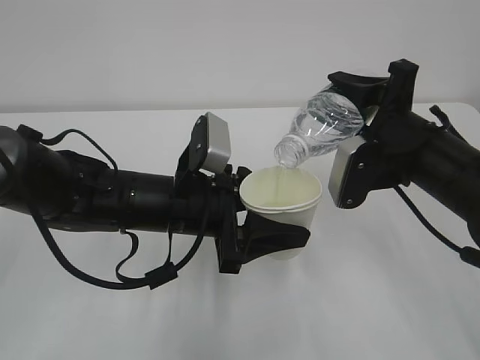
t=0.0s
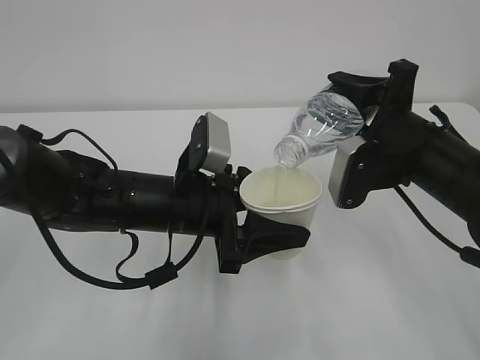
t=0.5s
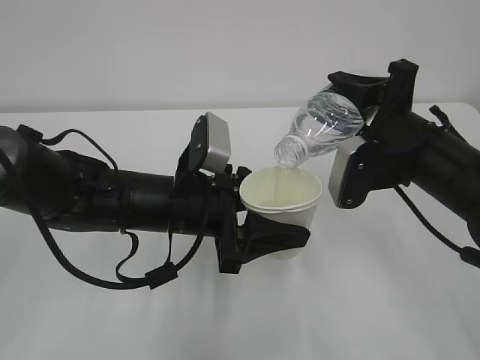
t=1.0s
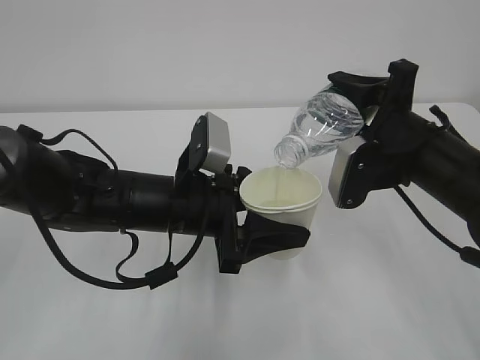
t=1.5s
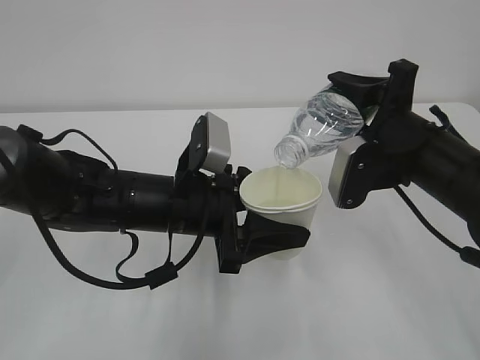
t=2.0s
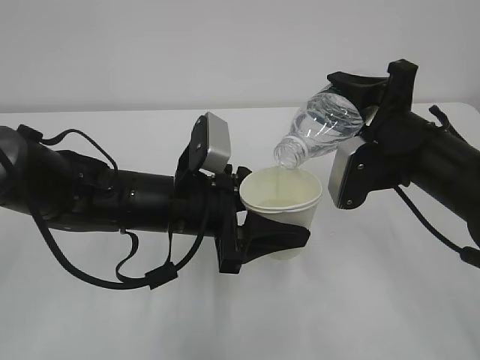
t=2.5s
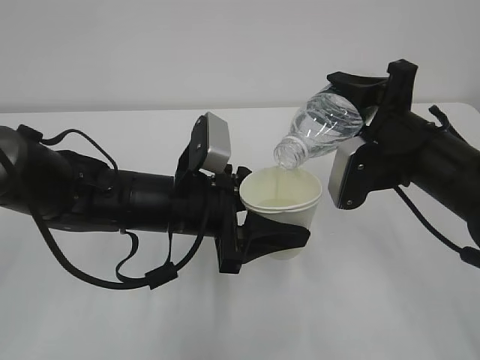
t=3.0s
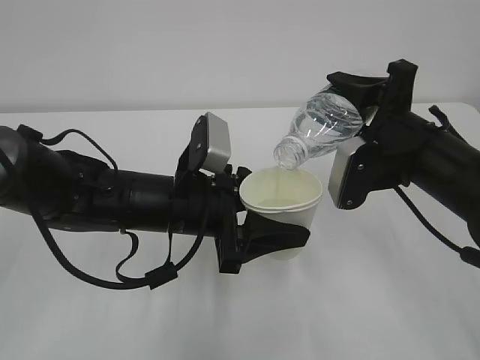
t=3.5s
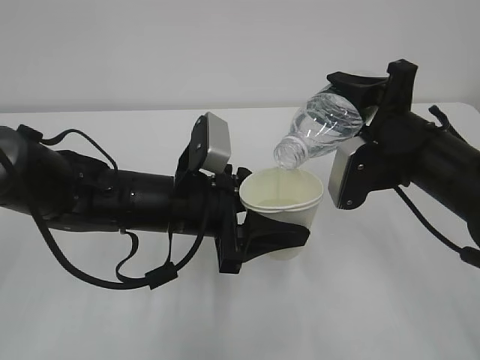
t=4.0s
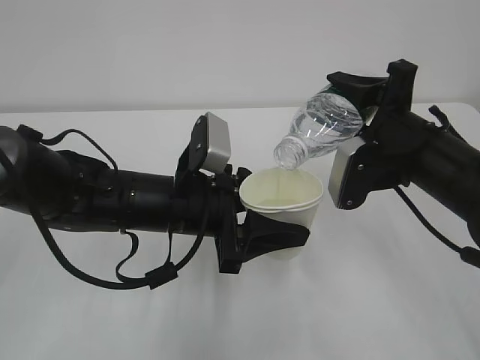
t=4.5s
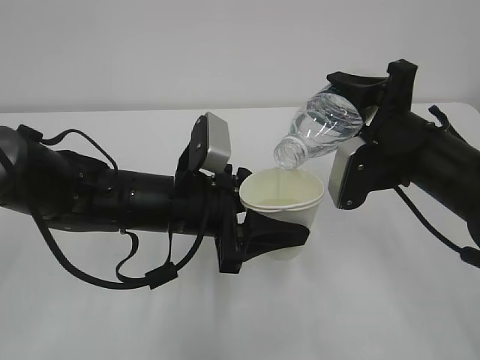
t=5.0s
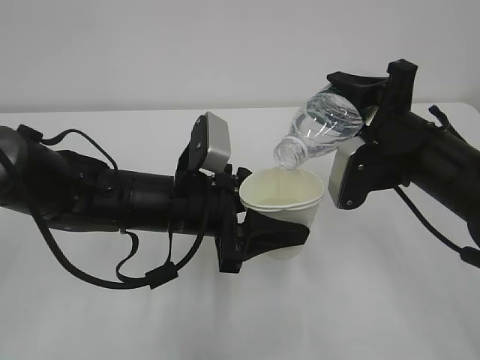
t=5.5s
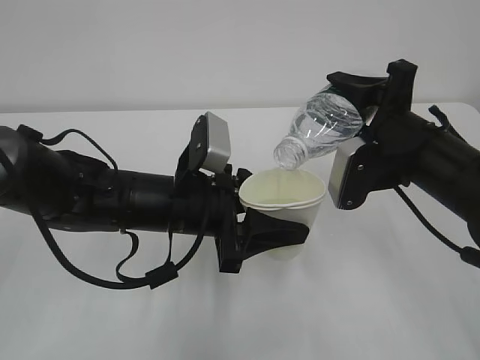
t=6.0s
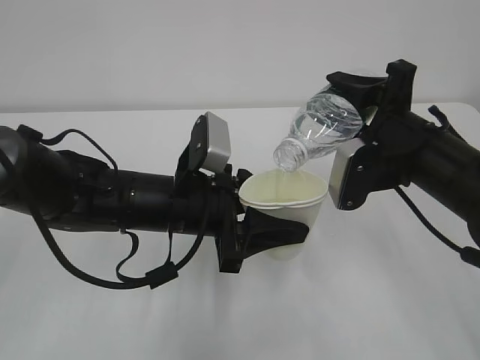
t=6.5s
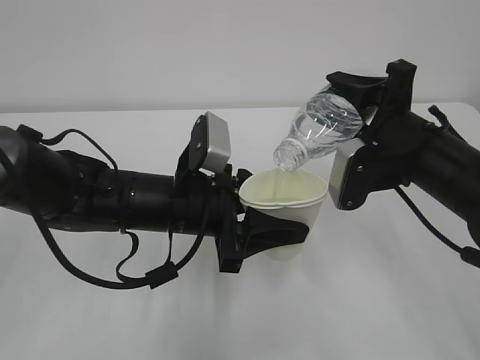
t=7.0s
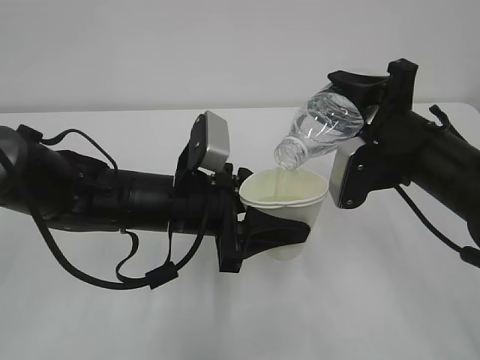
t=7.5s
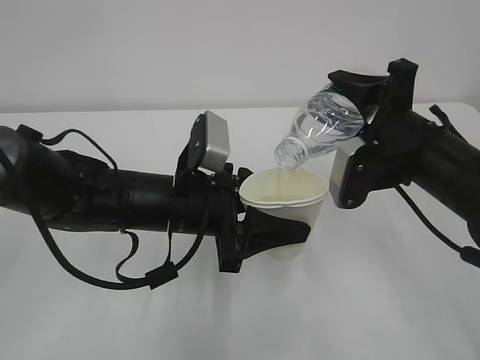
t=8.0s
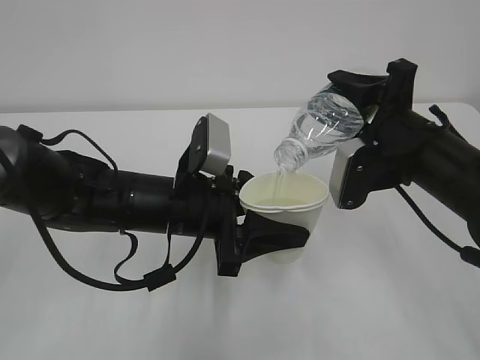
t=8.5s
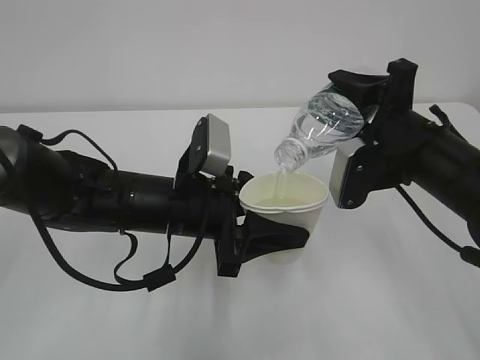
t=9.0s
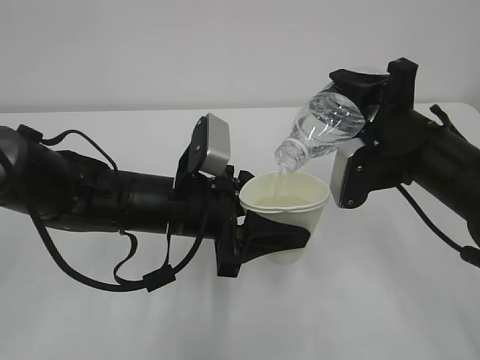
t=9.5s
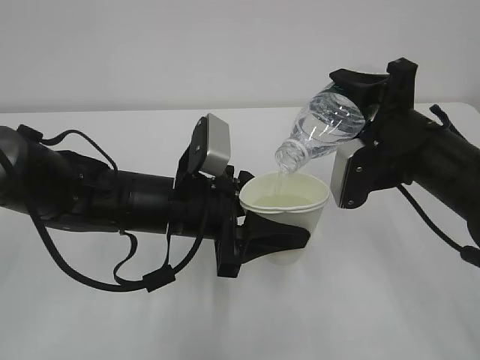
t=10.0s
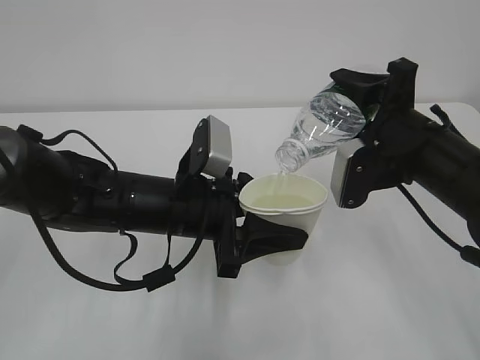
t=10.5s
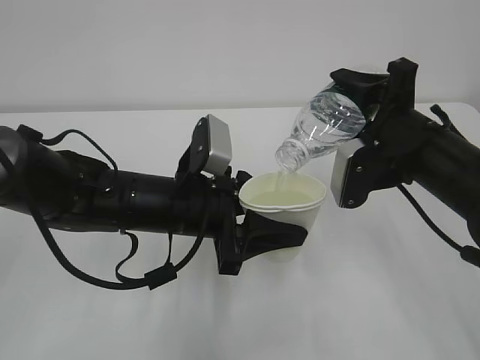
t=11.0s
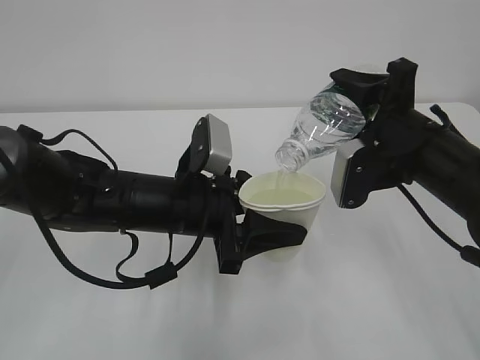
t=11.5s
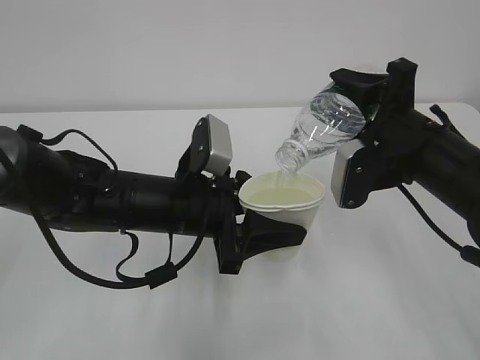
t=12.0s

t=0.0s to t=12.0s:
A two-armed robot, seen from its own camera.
t=0.0s to t=8.0s: The two grippers keep their place.
t=8.0s to t=12.0s: The two grippers keep their place.

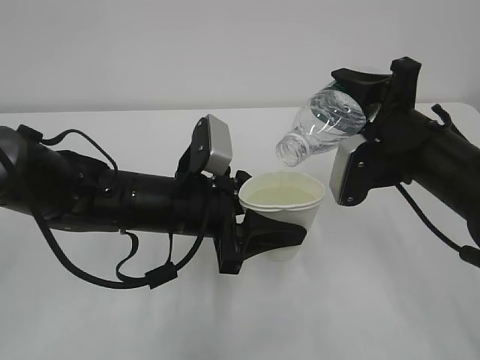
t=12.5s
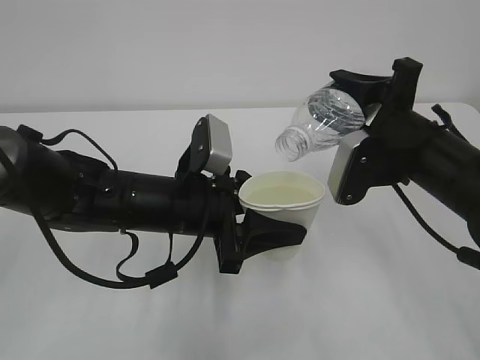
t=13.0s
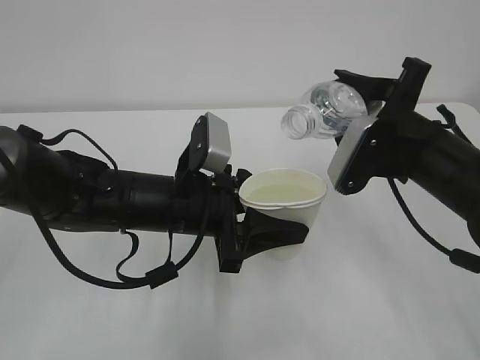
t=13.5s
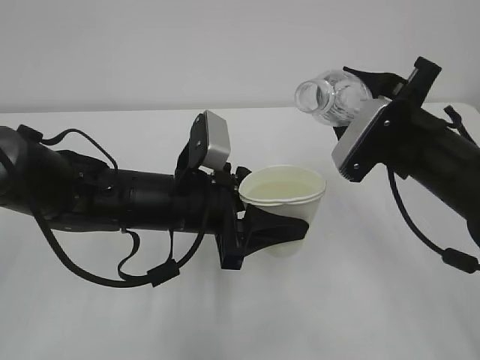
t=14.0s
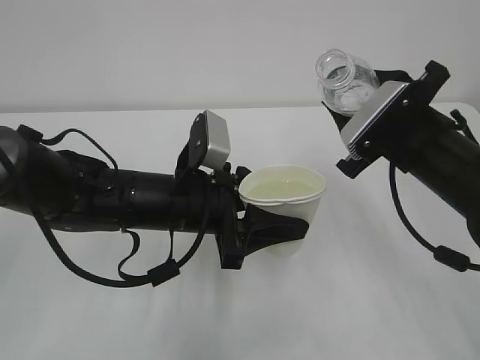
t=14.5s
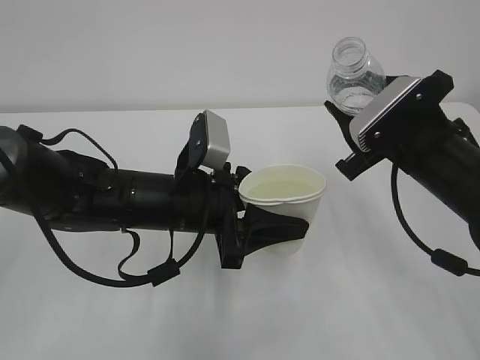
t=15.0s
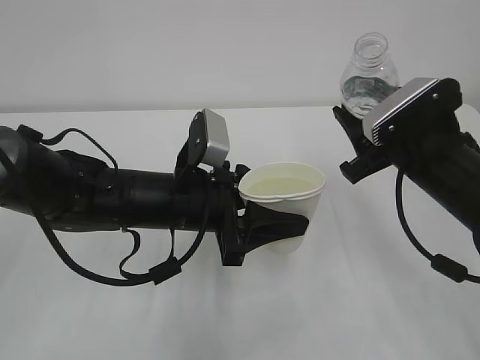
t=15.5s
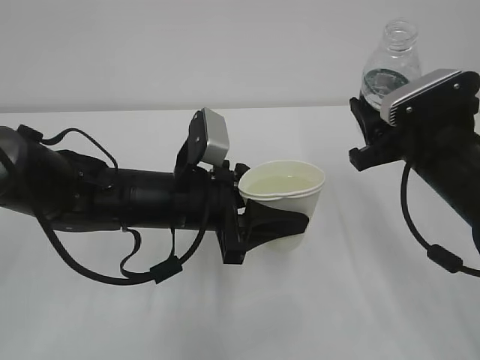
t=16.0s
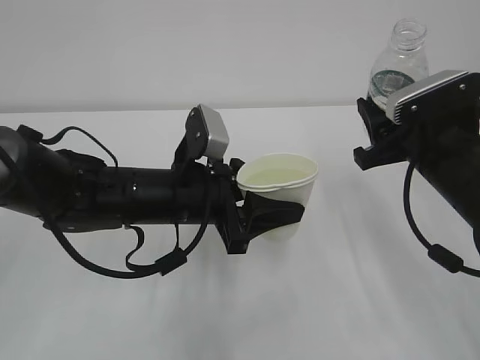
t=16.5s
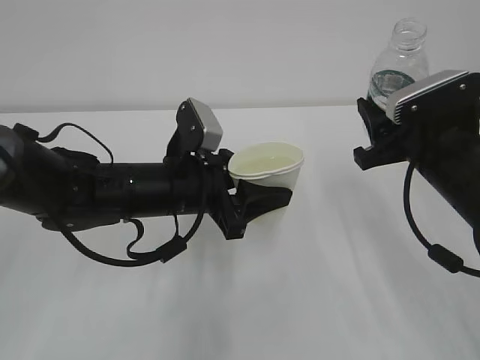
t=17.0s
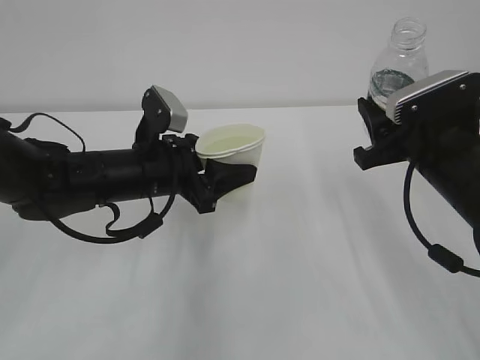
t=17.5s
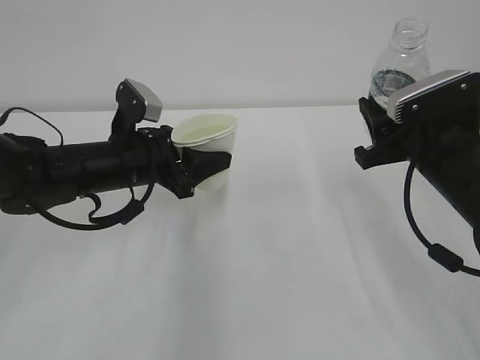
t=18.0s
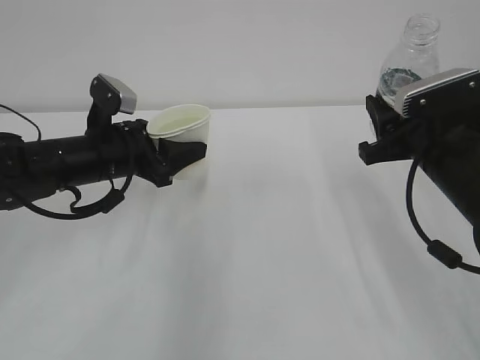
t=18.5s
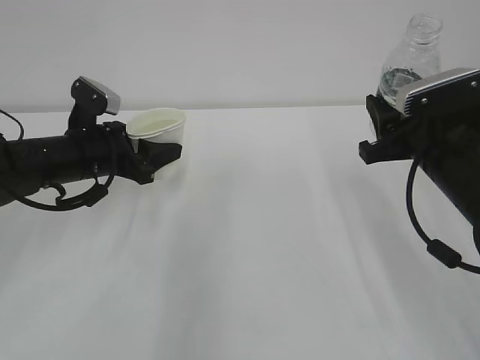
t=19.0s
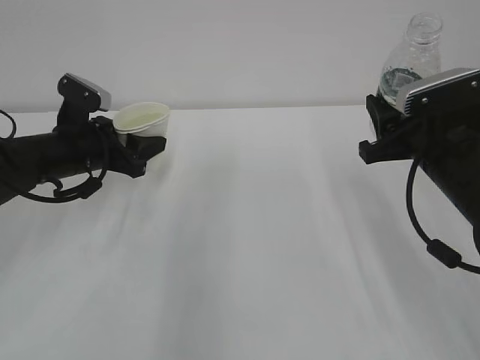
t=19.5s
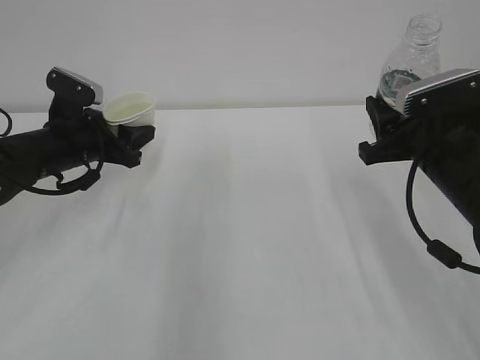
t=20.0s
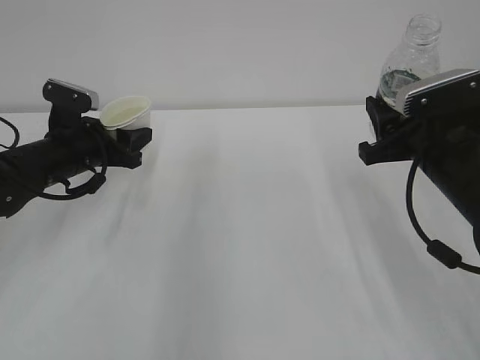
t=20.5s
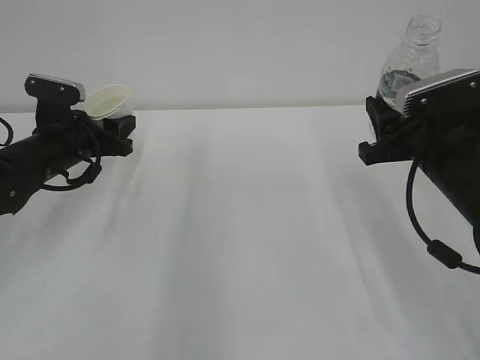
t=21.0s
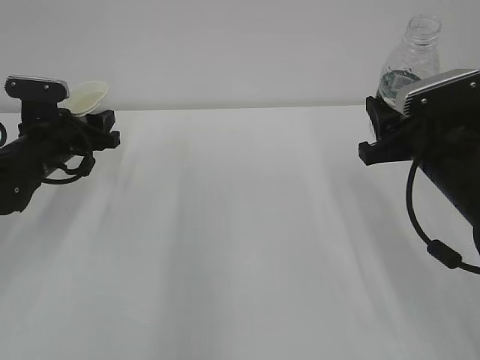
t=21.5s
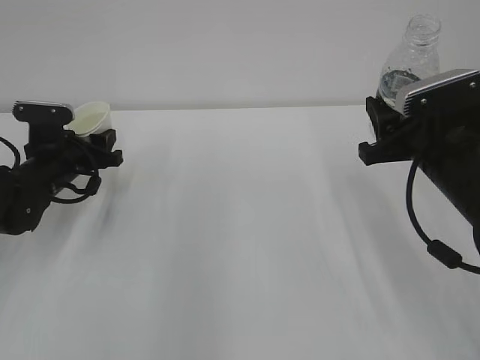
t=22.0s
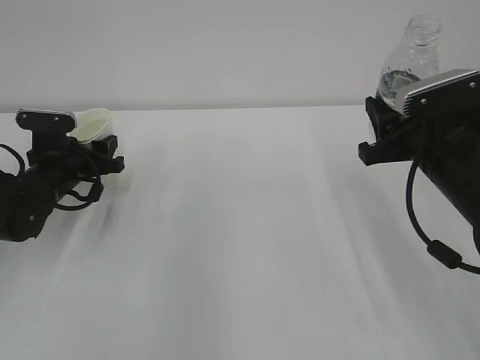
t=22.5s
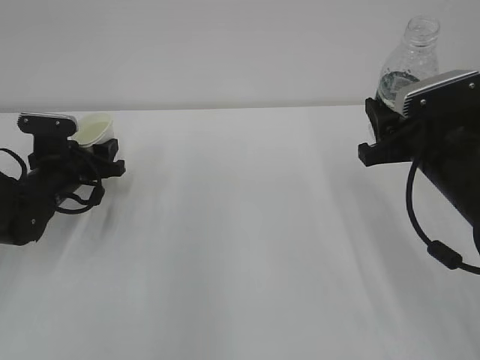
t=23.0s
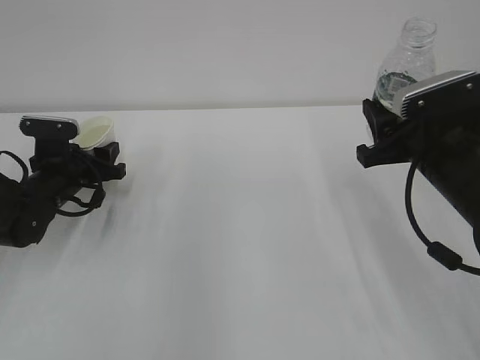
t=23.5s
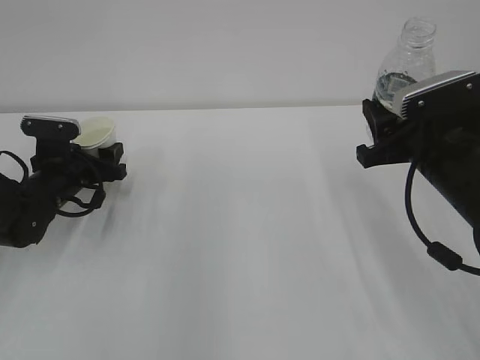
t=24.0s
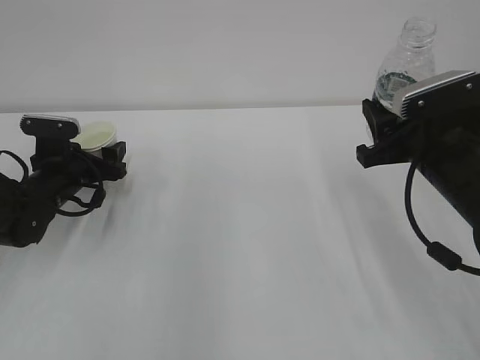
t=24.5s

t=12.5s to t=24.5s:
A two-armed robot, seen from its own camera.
t=16.5s to t=18.5s: The left gripper goes some 10 cm to the left and forward.
t=18.5s to t=20.5s: The left gripper goes some 5 cm to the left.
t=20.5s to t=22.5s: The left gripper moves approximately 5 cm.
t=22.5s to t=24.5s: The left gripper opens.

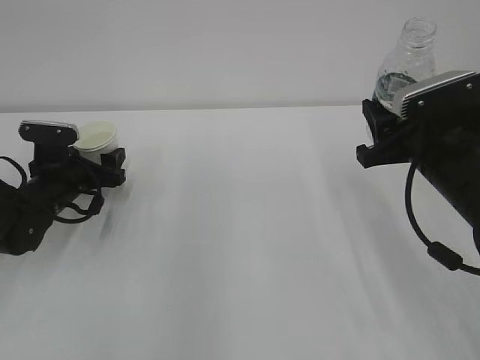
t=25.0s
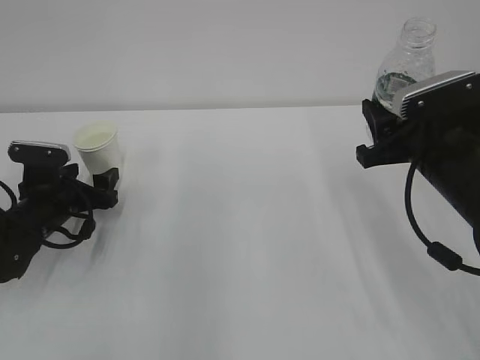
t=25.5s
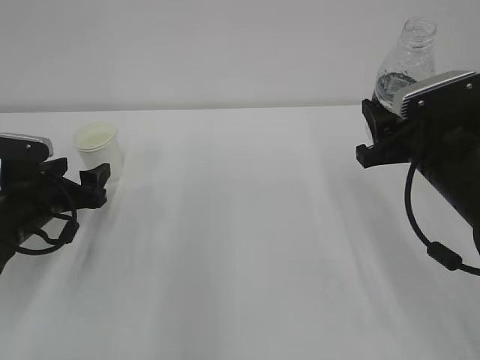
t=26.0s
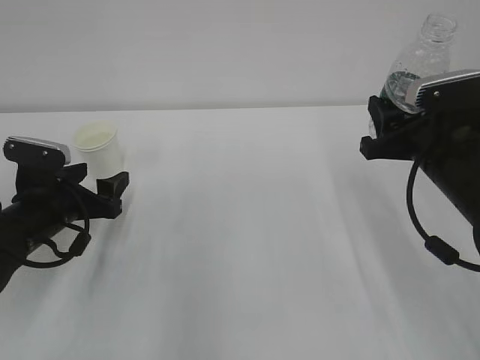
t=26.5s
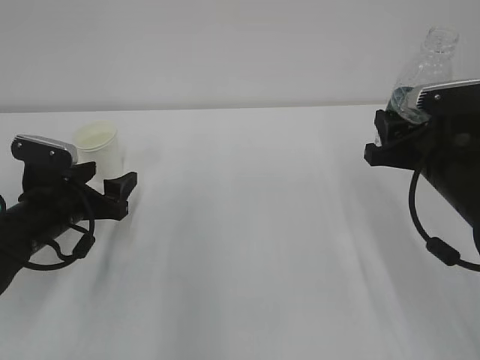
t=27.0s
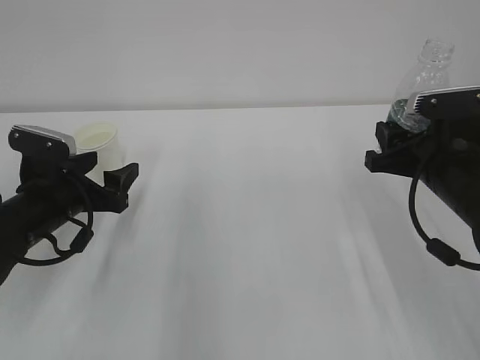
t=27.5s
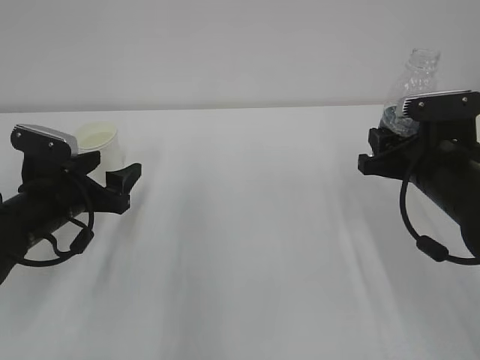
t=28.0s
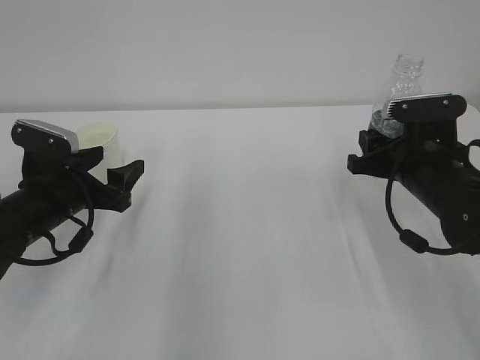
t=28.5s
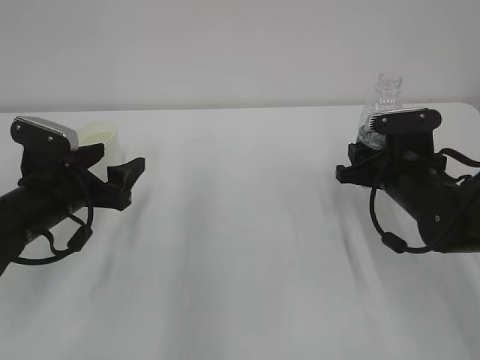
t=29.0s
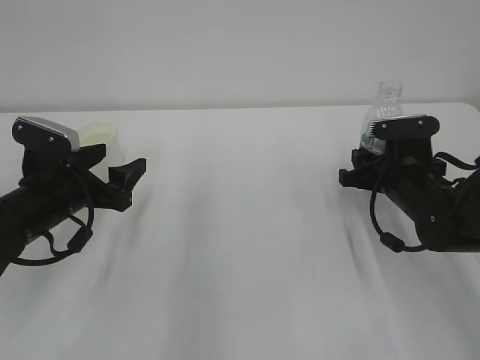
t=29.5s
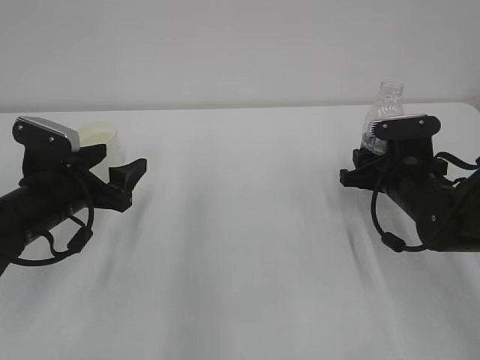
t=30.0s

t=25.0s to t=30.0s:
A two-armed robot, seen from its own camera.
t=25.0s to t=27.5s: The left gripper heads backward, covering some 10 cm.
t=27.5s to t=30.0s: The right gripper moves downward and forward, approximately 10 cm.
